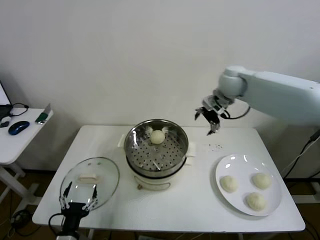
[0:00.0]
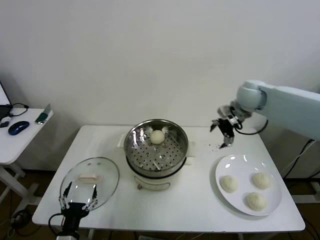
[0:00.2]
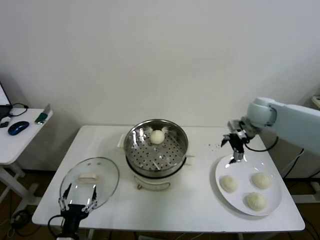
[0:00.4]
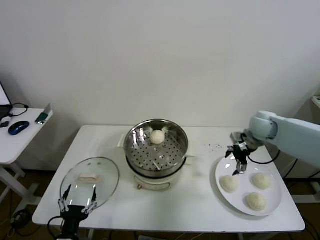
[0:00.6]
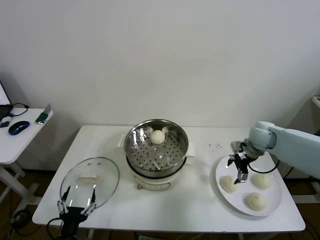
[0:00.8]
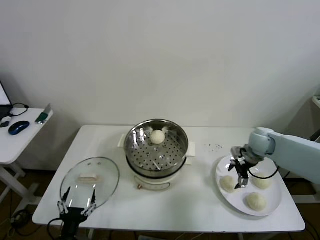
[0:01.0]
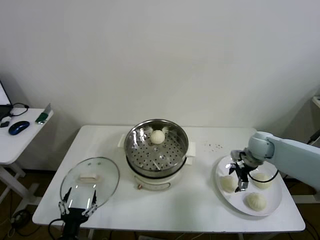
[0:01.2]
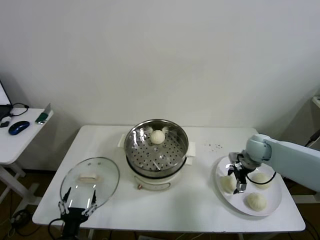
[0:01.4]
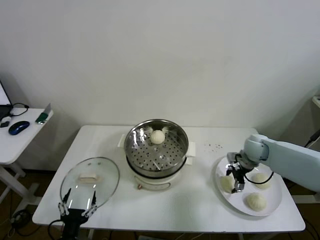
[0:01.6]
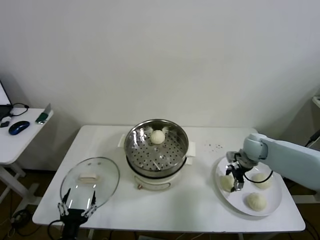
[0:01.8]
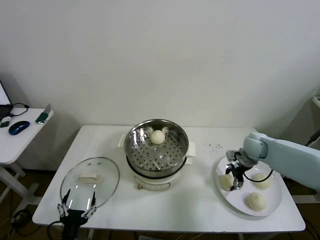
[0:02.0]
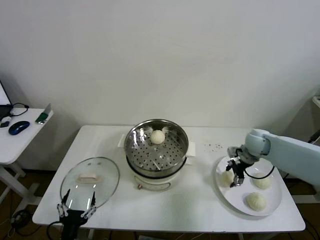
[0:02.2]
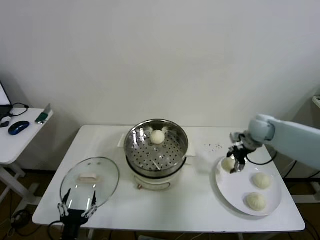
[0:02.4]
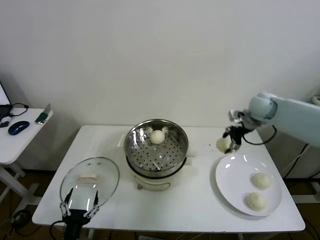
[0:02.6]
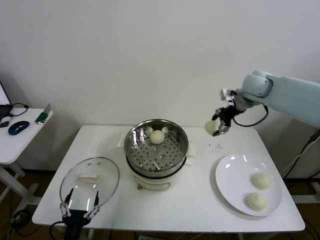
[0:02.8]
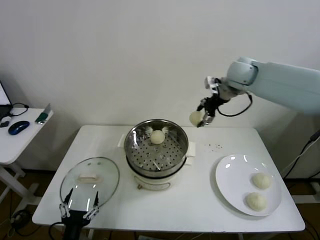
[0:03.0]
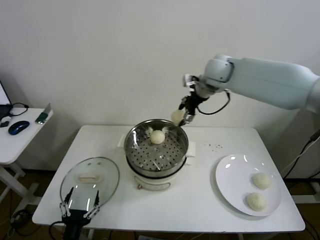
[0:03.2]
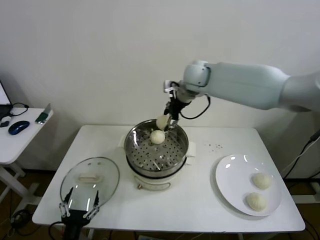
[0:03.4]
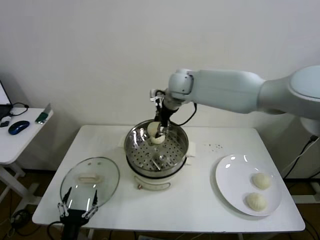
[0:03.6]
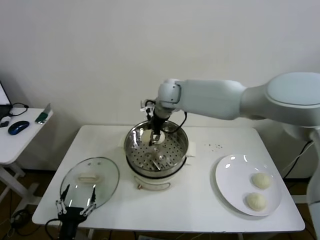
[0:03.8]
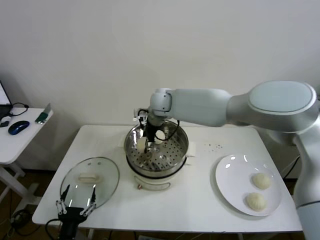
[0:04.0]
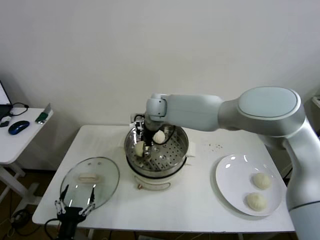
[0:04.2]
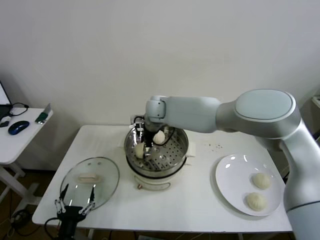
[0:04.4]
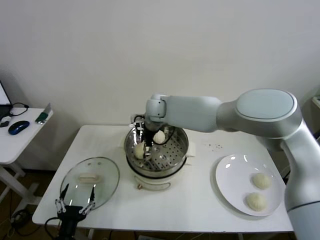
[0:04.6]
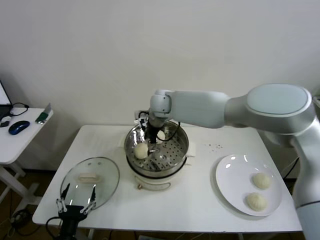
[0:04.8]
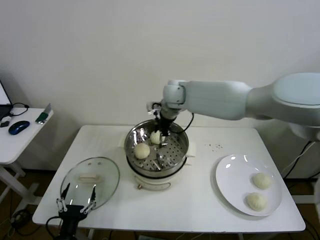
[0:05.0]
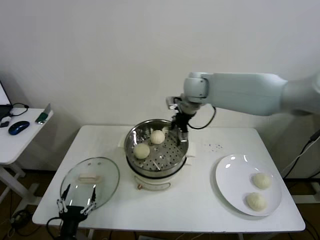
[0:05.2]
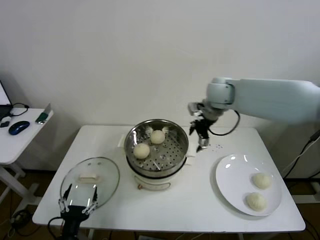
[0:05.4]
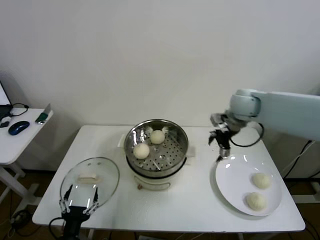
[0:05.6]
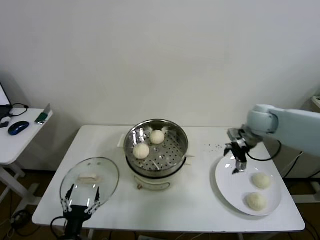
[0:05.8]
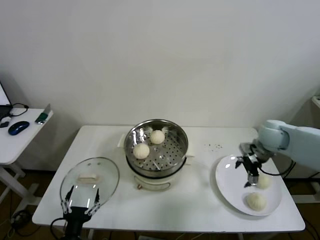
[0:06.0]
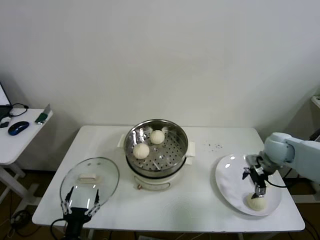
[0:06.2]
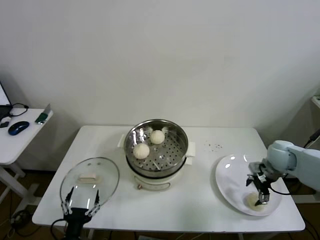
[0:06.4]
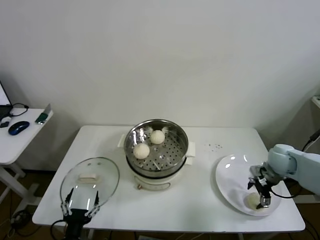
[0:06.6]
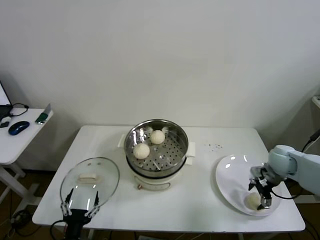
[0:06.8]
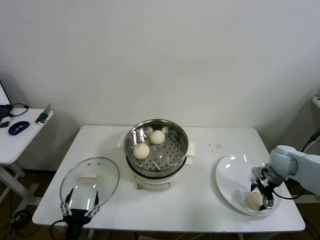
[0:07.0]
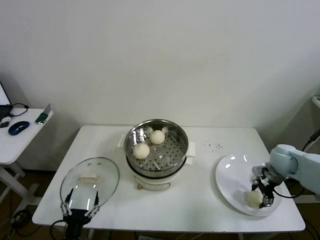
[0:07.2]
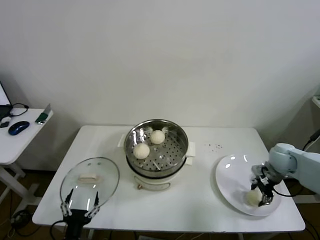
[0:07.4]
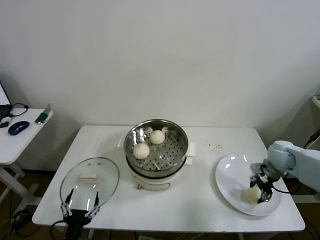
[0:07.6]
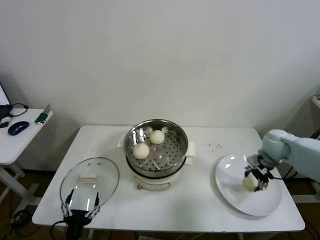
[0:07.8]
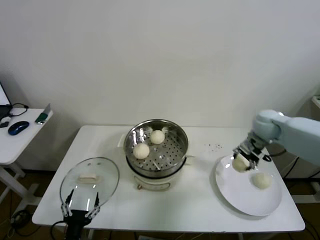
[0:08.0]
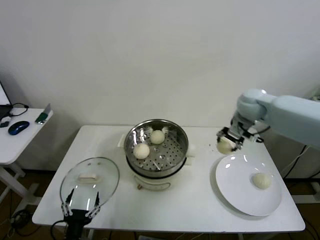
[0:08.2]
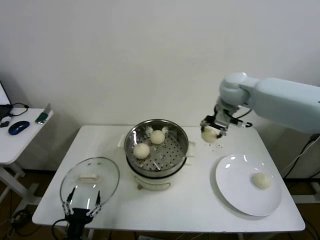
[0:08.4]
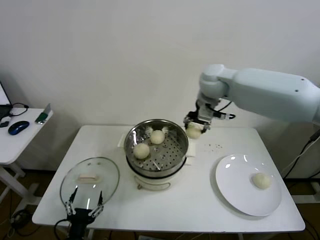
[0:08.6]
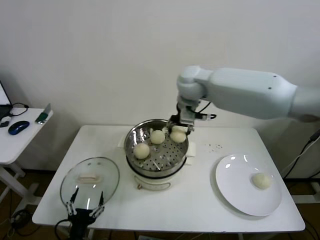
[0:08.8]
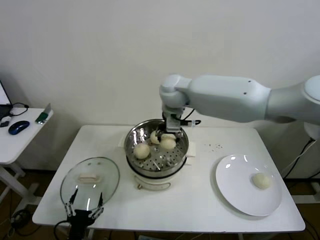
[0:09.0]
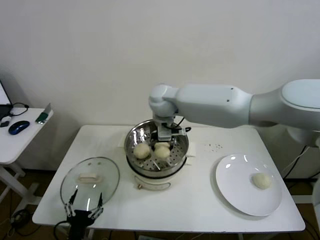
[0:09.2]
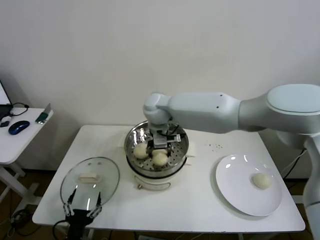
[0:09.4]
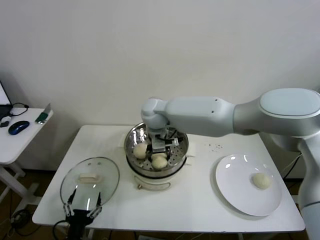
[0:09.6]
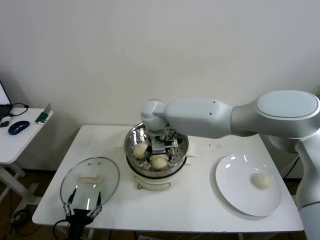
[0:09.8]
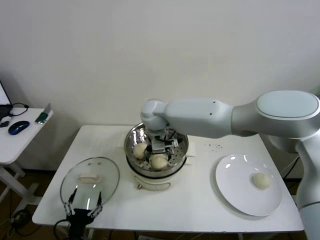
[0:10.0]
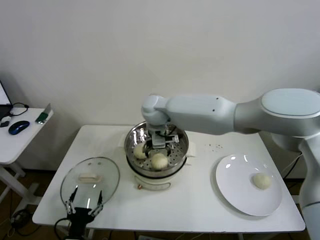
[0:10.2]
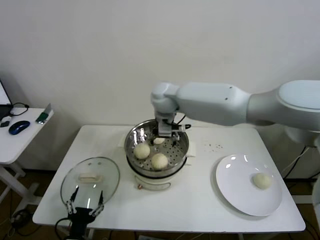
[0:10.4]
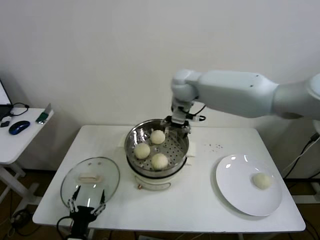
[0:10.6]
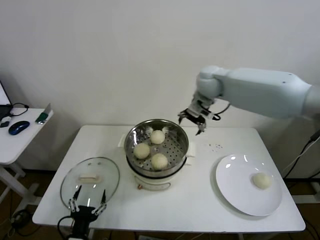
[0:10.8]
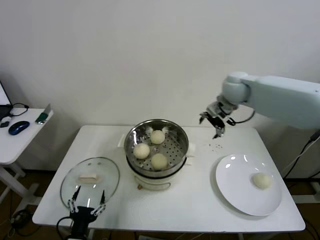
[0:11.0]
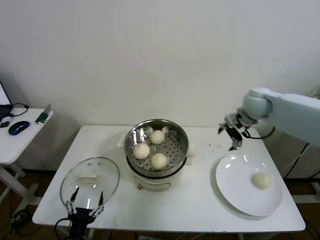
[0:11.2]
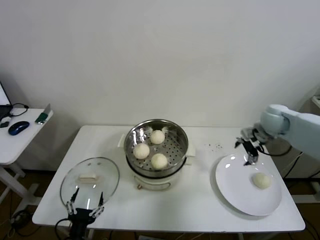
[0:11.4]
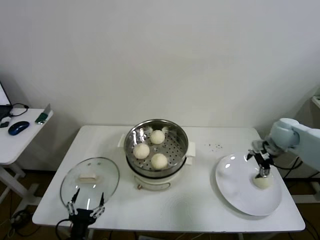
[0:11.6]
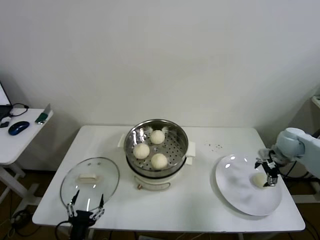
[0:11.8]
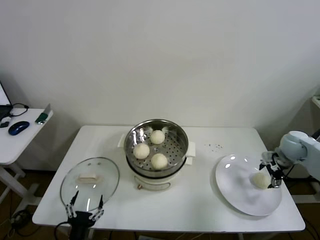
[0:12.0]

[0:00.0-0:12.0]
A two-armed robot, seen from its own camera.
Step, 0:00.0 to 0:01.6: Grasp the baozi in the plate with right gripper.
Step, 0:01.8 to 0:04.6: Place the baozi on the steamer with right gripper.
Step, 0:04.8 to 0:07.2: Grasp the baozi in the plate with right gripper.
Step, 0:07.6 to 0:10.0: Place the baozi on the steamer with right gripper.
0:00.0 to 0:01.6: The right gripper is displaced downward by roughly 20 cm.
0:01.6 to 0:03.0: The right gripper heads upward and to the left, covering about 30 cm.
0:03.0 to 0:04.4: The right gripper goes approximately 25 cm to the left and downward, and opens up.
0:04.4 to 0:06.0: The right gripper moves to the right, about 40 cm.
0:06.0 to 0:07.6: The right gripper travels downward by roughly 5 cm, and closes its fingers.
0:07.6 to 0:09.0: The right gripper heads to the left and upward, covering some 40 cm.
0:09.0 to 0:10.4: The right gripper opens its fingers.
0:10.4 to 0:12.0: The right gripper is displaced to the right by about 40 cm.

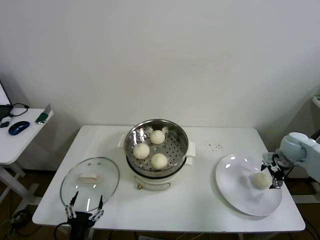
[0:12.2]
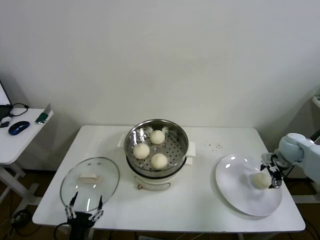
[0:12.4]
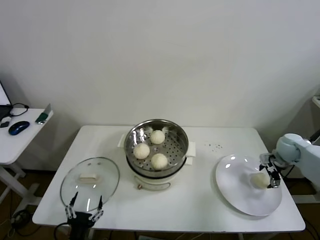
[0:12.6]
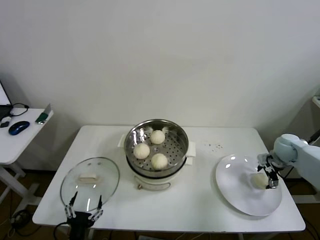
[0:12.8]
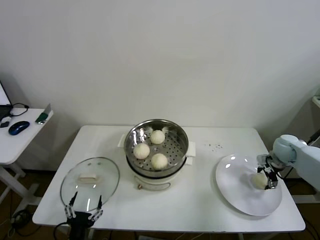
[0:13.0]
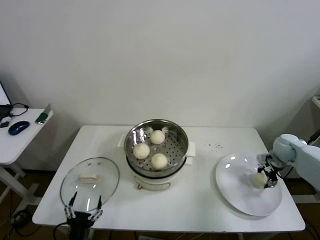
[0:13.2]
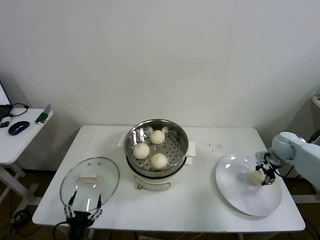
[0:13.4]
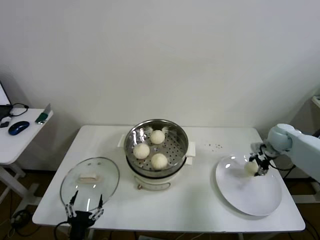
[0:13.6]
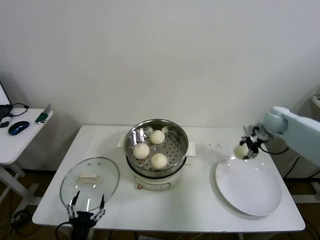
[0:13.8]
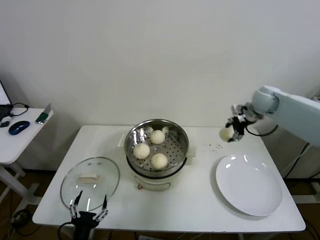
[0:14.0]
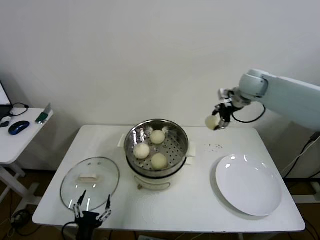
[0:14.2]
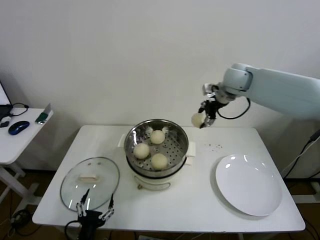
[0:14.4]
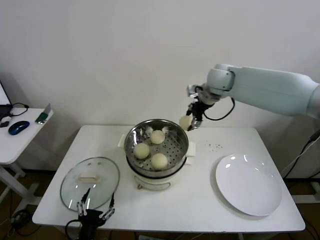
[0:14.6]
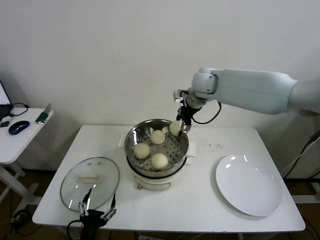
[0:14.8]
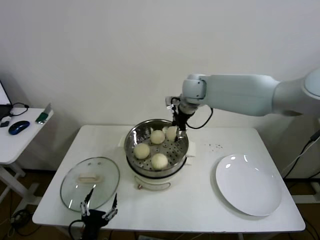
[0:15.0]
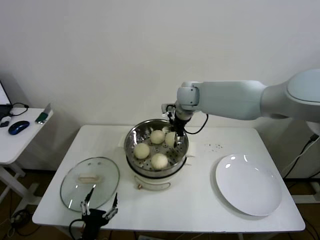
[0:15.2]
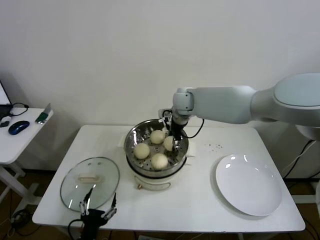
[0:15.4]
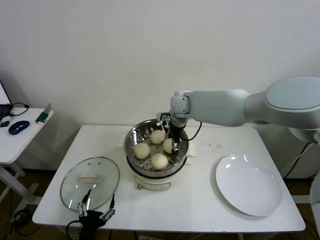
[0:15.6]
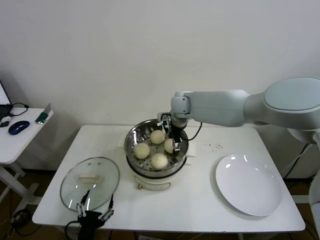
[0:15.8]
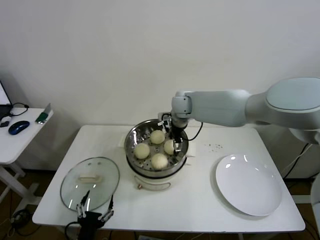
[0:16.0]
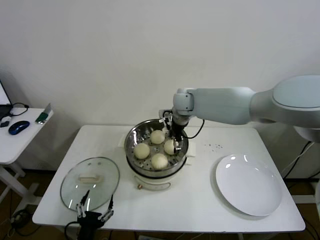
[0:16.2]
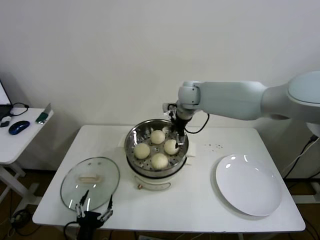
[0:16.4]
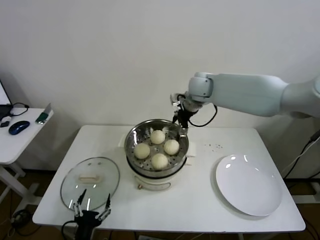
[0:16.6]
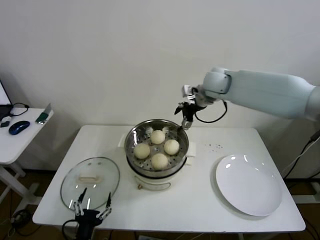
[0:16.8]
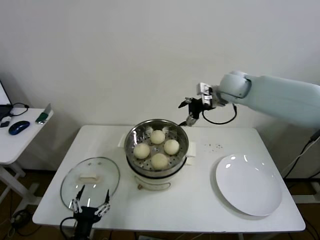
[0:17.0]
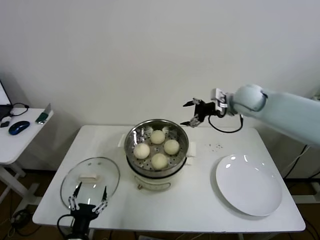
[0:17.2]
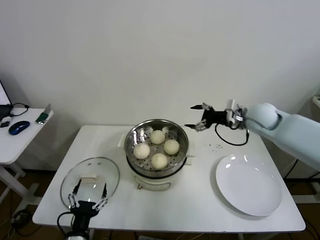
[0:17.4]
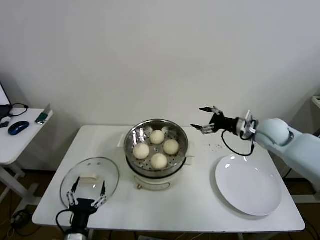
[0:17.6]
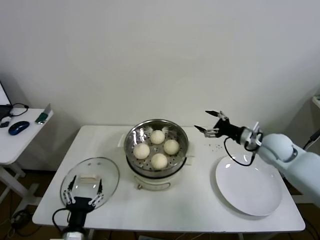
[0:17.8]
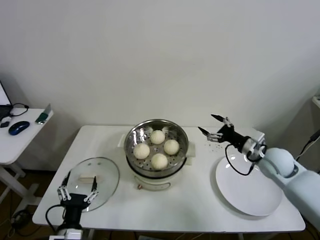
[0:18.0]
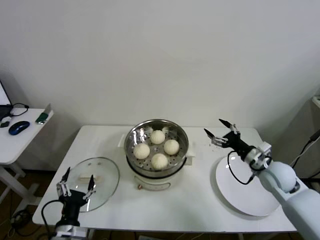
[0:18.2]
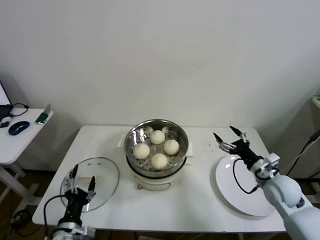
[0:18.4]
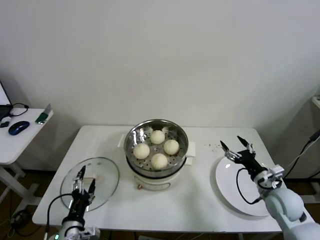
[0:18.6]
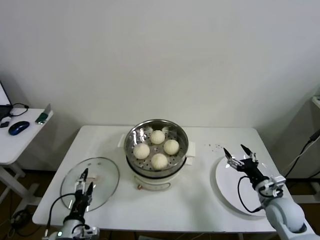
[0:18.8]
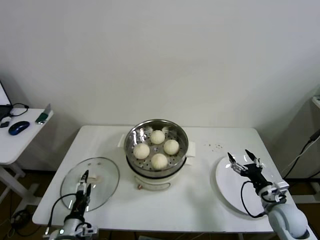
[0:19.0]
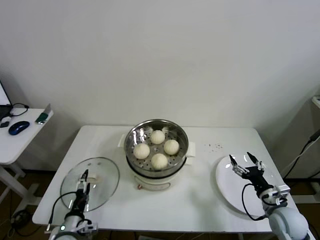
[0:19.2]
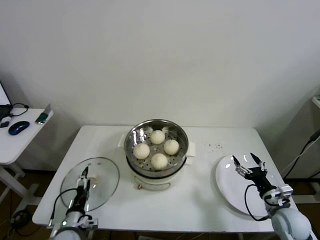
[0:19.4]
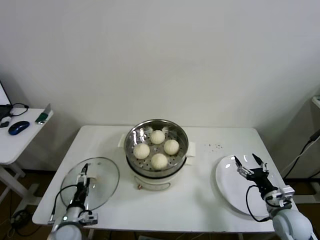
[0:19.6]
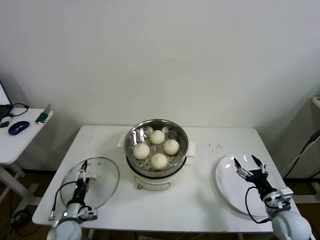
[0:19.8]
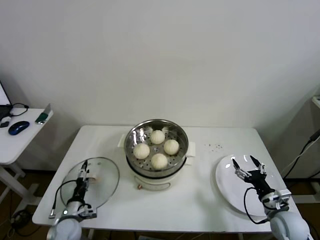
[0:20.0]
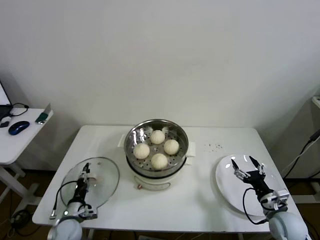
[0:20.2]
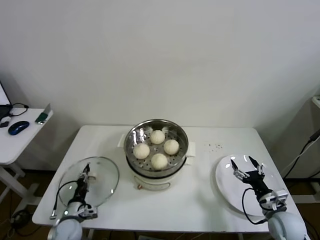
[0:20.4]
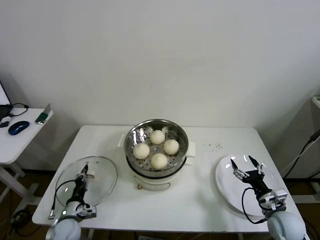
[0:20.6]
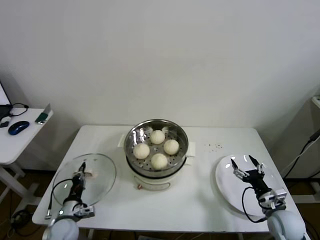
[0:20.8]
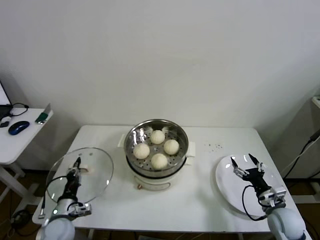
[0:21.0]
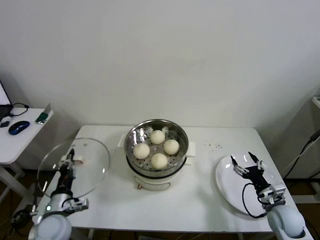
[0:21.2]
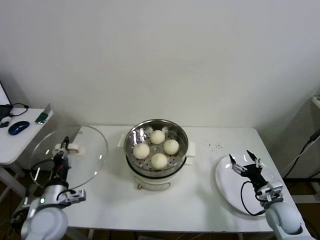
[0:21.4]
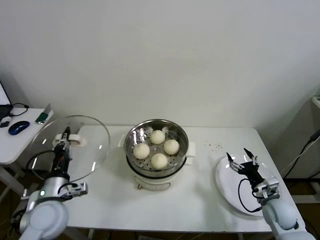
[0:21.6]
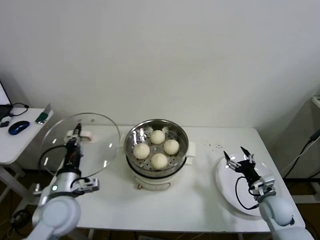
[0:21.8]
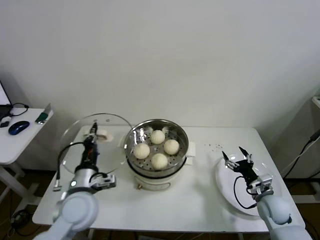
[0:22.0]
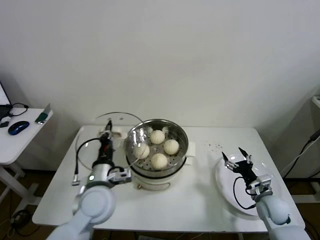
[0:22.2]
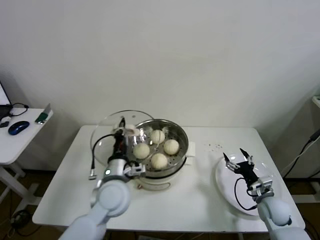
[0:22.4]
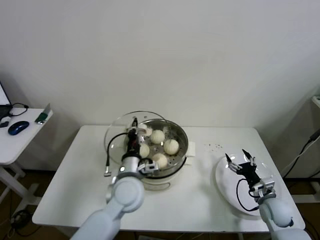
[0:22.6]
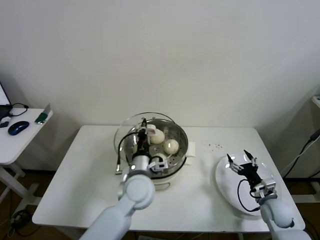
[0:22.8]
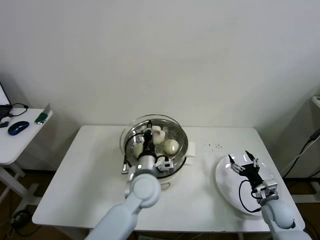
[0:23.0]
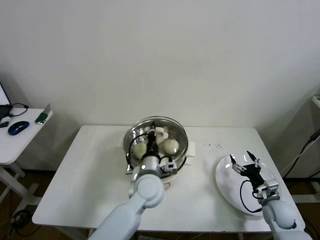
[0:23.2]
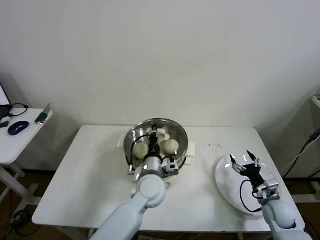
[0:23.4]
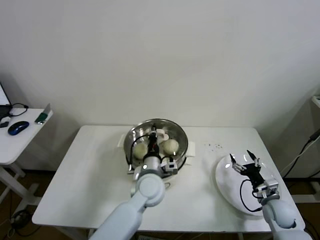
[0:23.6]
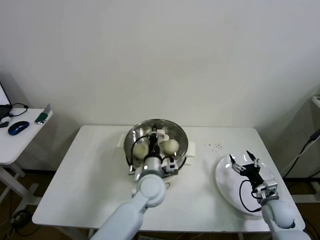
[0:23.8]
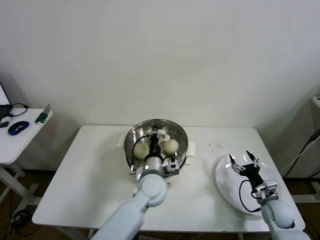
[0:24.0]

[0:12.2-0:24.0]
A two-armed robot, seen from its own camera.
Step, 0:13.4 to 0:16.0: Place the baozi on the steamer with right gripper.
Step, 0:16.2 to 0:20.6: Grasp the pot lid with left gripper.
0:12.2 to 0:13.6: The right gripper shifts by about 5 cm, and closes up.
0:13.6 to 0:15.2: The right gripper heads to the left, covering approximately 35 cm.
0:15.2 to 0:16.6: The right gripper ends up roughly 5 cm from where it was, and opens its fingers.
0:16.6 to 0:18.2: The left gripper moves some 5 cm; the right gripper travels to the right, backward and downward by about 40 cm.
0:18.2 to 0:19.6: The right gripper goes about 15 cm backward and downward, while the left gripper travels downward, forward and to the left by about 15 cm.
0:19.6 to 0:21.0: The left gripper closes its fingers.
0:21.0 to 0:22.6: The right gripper moves approximately 5 cm. The left gripper goes approximately 30 cm to the right and upward.
0:22.6 to 0:24.0: The left gripper travels to the right by roughly 10 cm.
